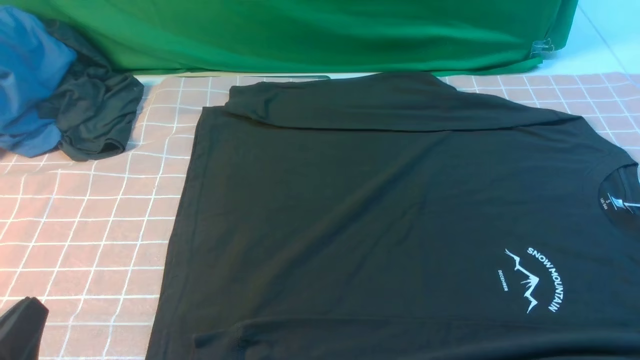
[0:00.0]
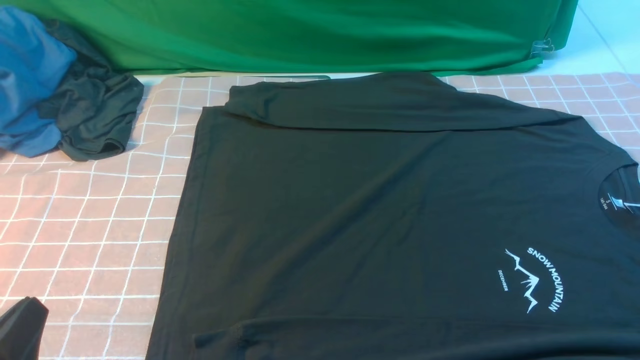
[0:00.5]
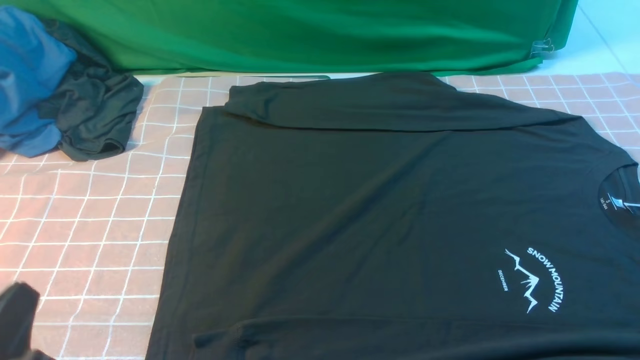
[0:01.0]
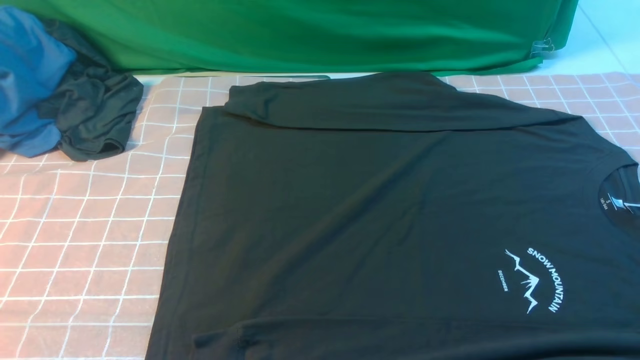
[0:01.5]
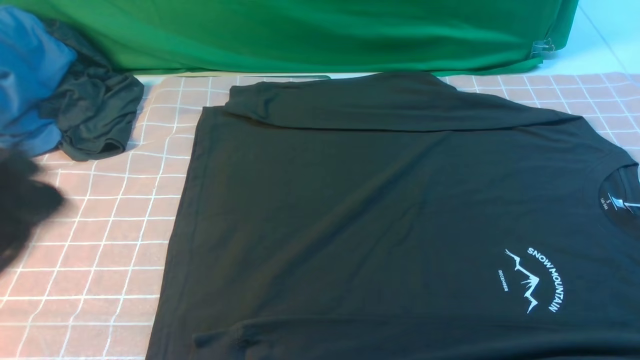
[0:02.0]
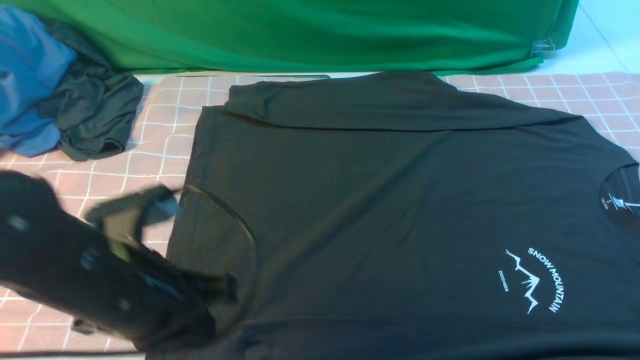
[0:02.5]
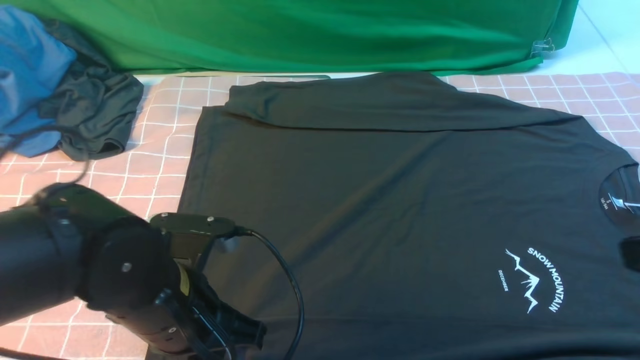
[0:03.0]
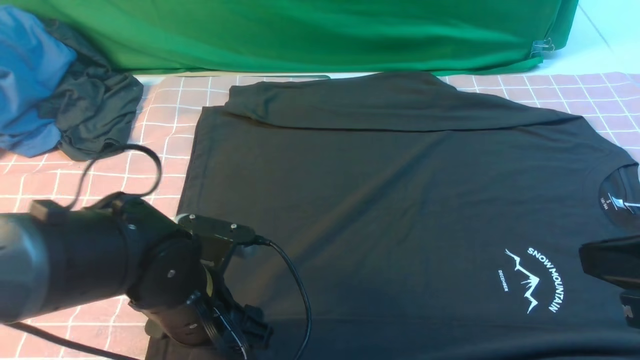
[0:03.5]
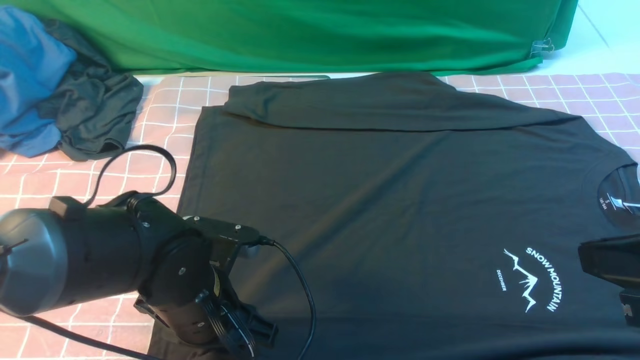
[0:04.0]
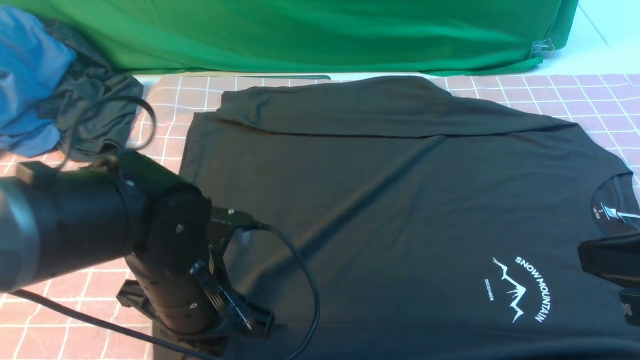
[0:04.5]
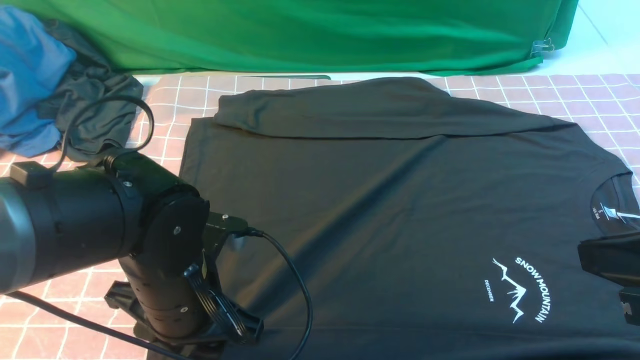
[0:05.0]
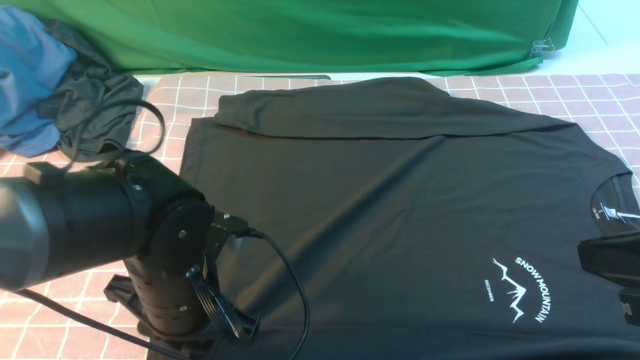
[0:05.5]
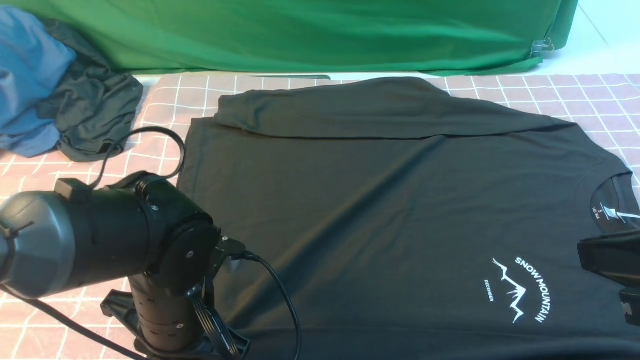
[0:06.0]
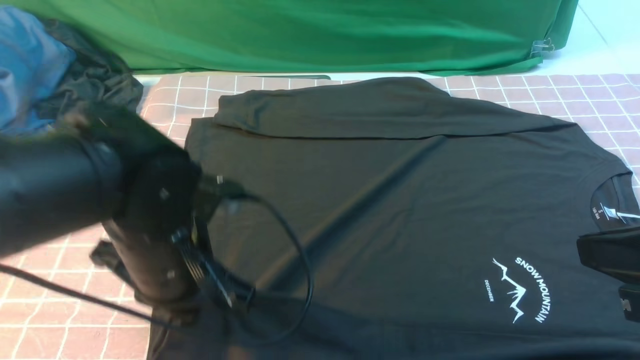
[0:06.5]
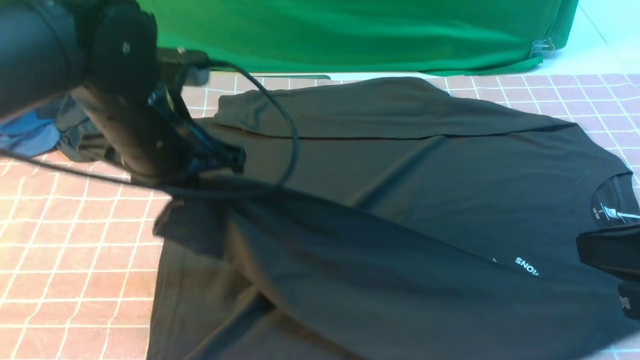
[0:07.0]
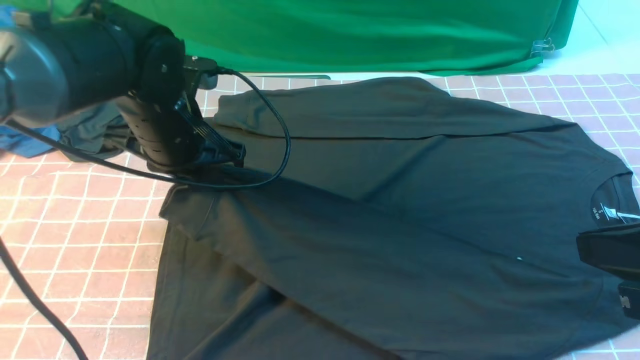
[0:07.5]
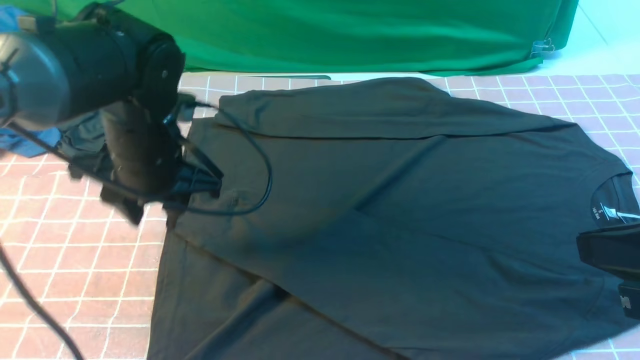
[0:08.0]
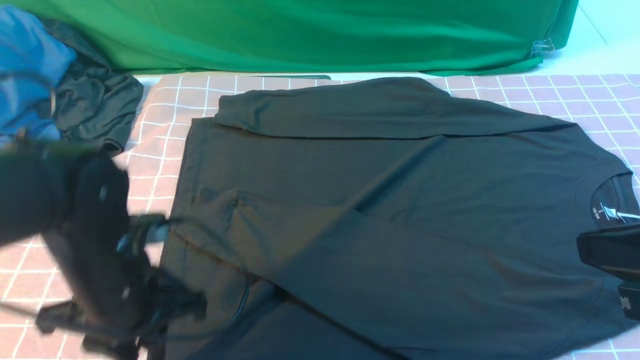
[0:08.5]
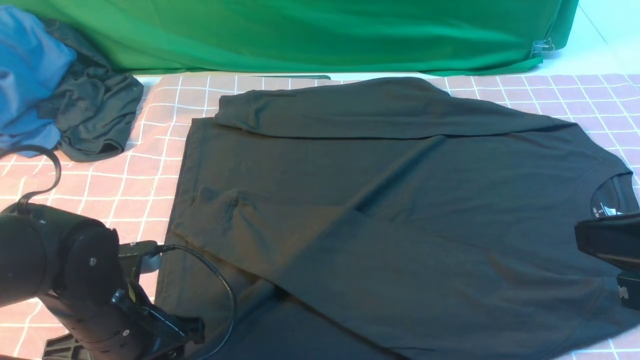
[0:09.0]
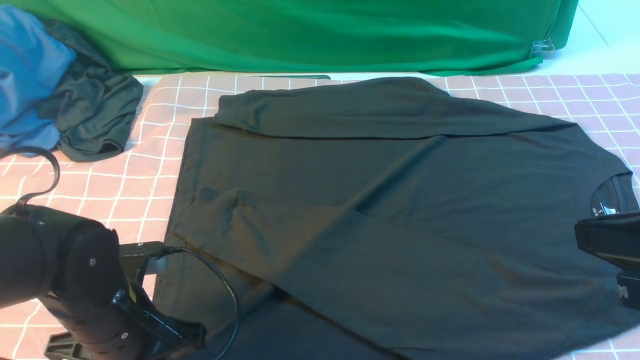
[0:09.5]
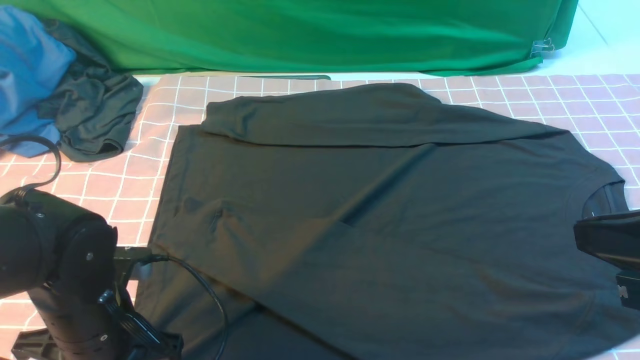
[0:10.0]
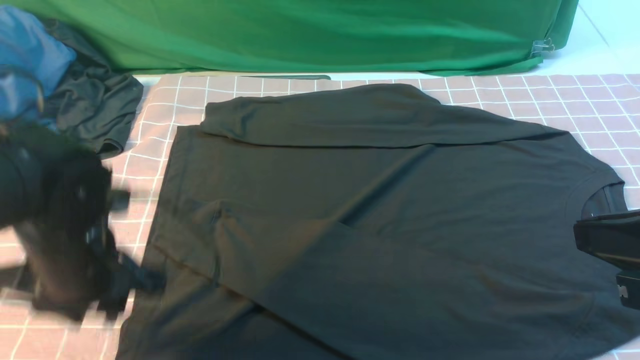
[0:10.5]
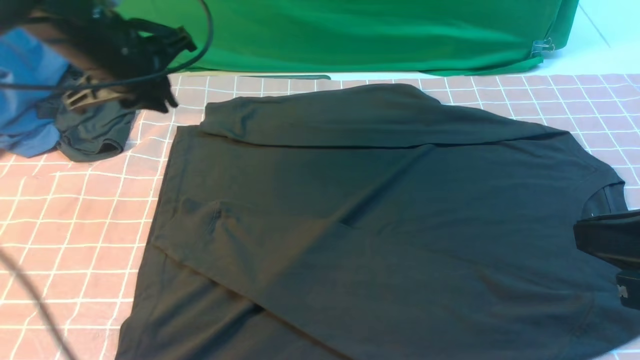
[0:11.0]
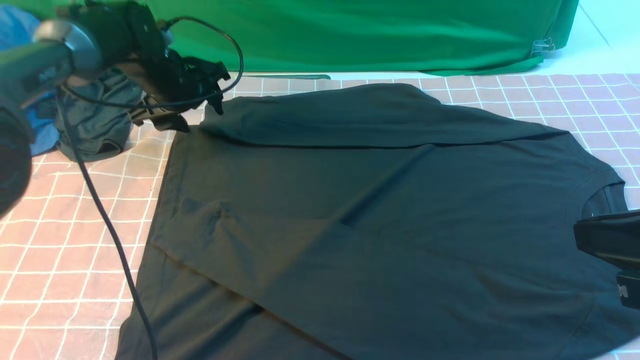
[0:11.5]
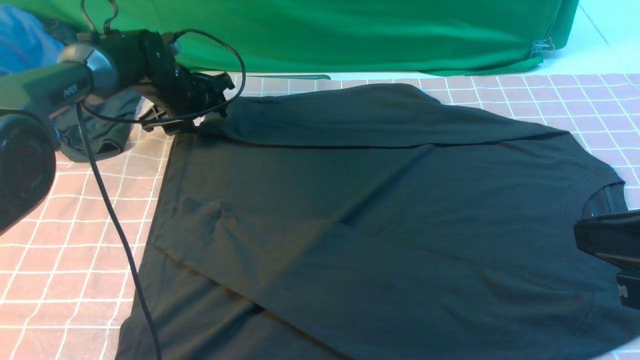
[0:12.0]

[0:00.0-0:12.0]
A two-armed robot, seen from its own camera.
Step, 0:00.0 to 0:06.5: use the left arm to clamp the cuff closest to it.
Step, 0:07.0 to 0:07.5: use the left arm to drag and place the cuff at the centered position on the left edge of the fabric.
0:00.0 to 0:02.0: The left gripper travels upward and forward by roughly 15 cm.
0:02.0 to 0:04.0: The left gripper heads downward, to the right and forward, covering about 20 cm, and opens up. The right gripper heads upward, forward and to the left, covering about 15 cm, and closes its fingers.
0:04.0 to 0:06.0: The grippers stay close to where they were, moving slightly.
0:06.0 to 0:08.0: The left gripper is displaced forward and upward by roughly 10 cm.
0:08.0 to 0:10.0: The left gripper moves backward and downward, roughly 15 cm, and closes its fingers.
0:10.0 to 0:12.0: The left gripper is displaced forward by some 30 cm, and opens its fingers.

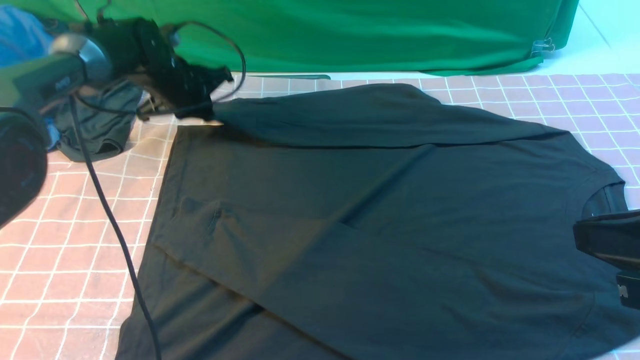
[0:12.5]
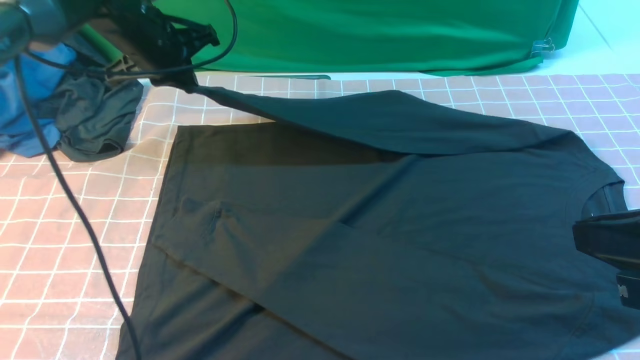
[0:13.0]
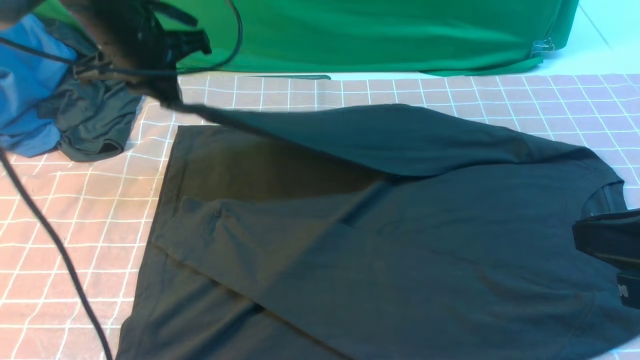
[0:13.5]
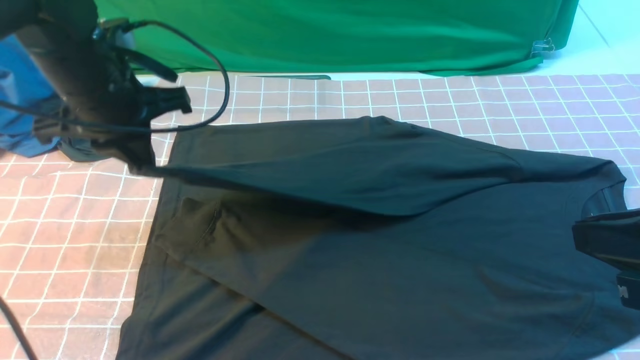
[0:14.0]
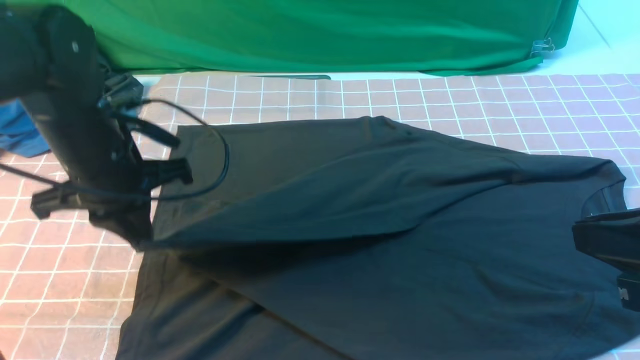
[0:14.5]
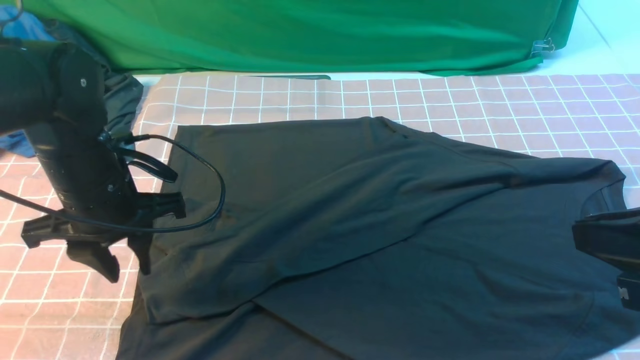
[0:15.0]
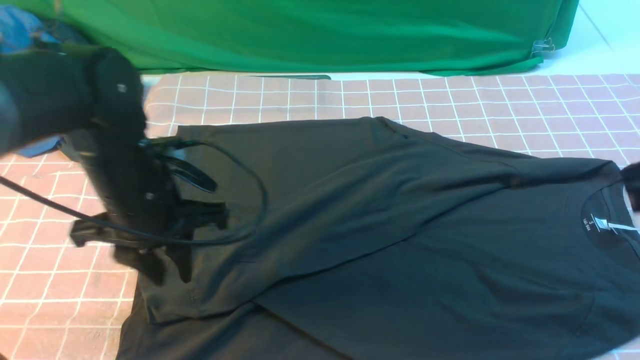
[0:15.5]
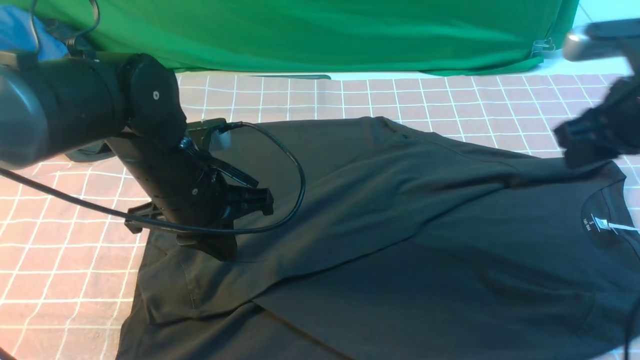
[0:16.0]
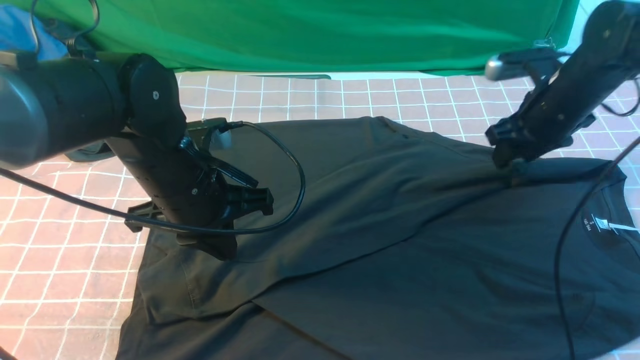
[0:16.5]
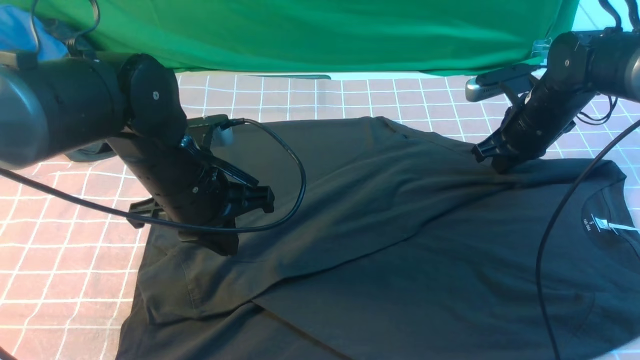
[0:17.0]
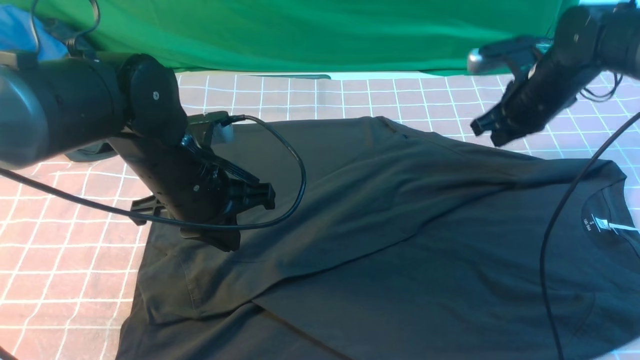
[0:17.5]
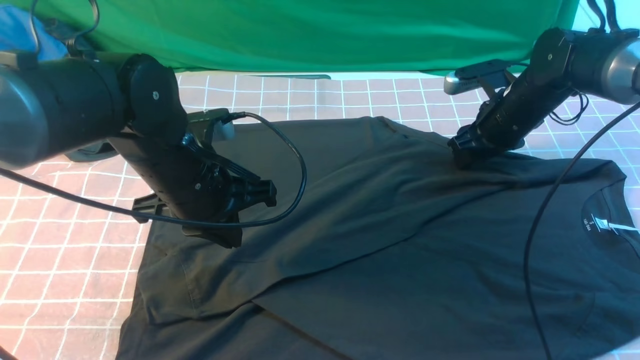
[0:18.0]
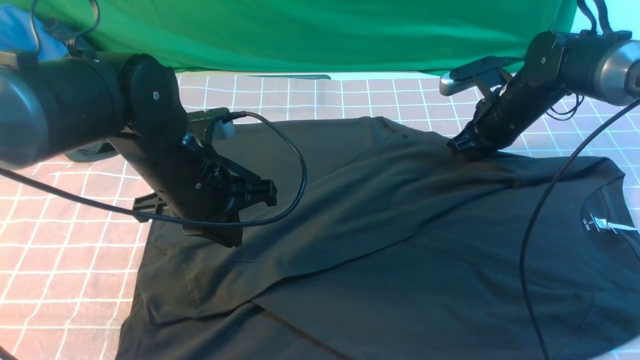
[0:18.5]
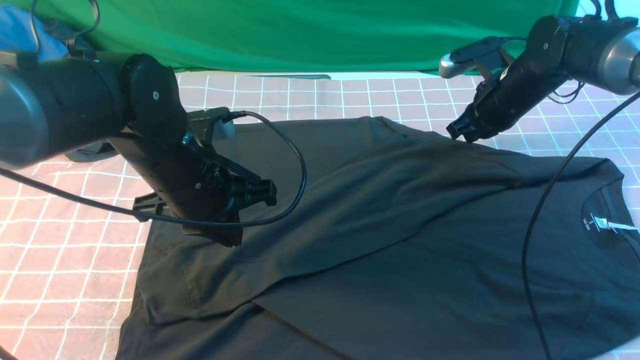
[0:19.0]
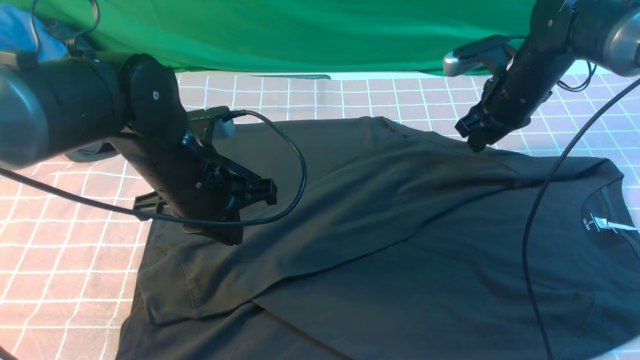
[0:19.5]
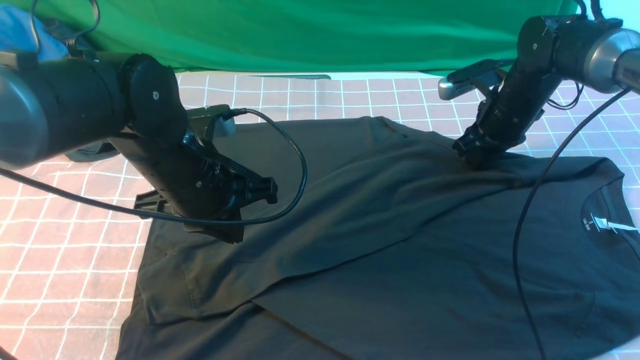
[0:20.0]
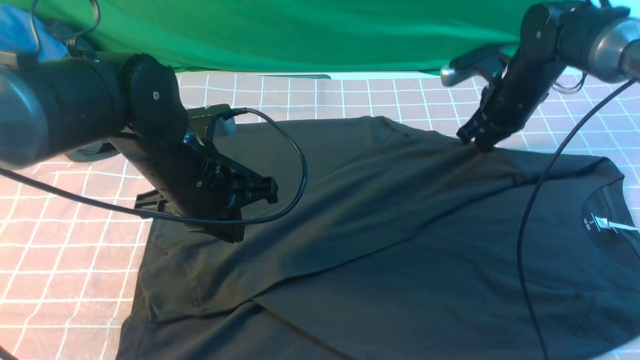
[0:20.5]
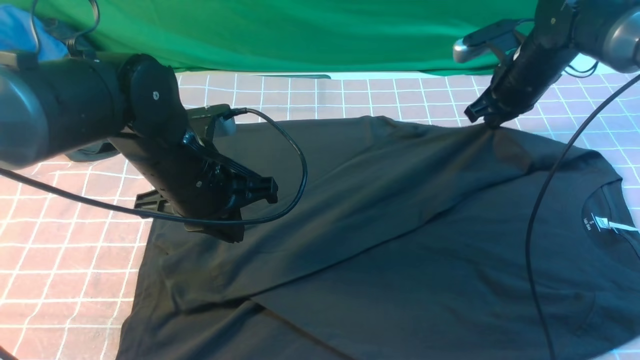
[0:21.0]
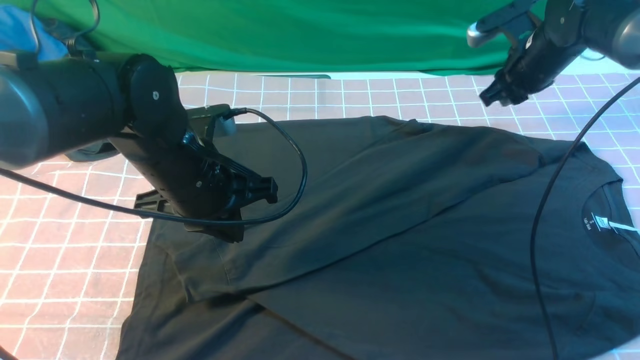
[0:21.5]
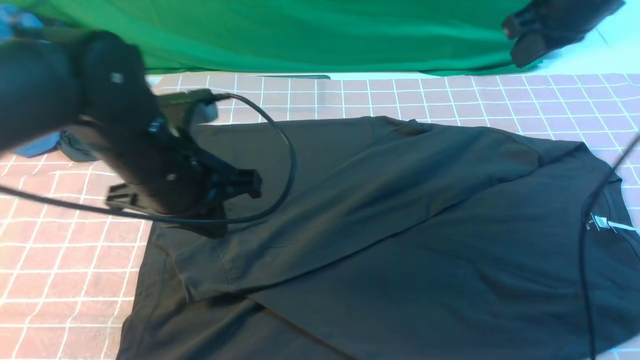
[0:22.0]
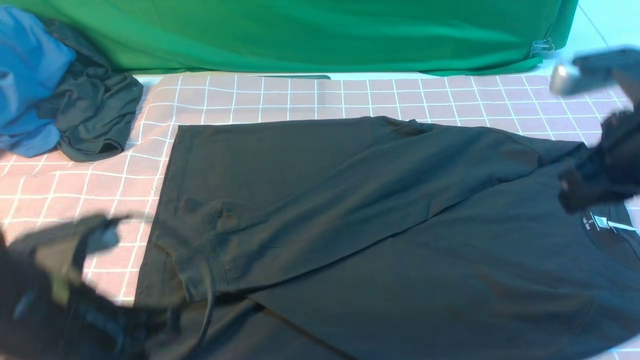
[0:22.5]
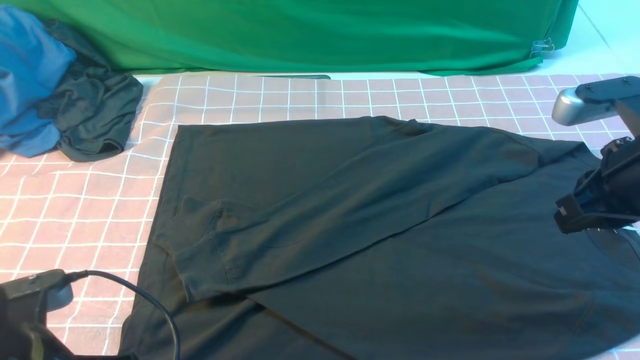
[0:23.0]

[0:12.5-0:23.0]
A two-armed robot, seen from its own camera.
Step, 0:12.5 to 0:15.0: use the left arm to drag and drop the cuff onto the cuff closest to the left arm.
0:12.5 to 0:14.5: The left gripper travels backward by roughly 20 cm.
0:14.5 to 0:16.5: The left gripper heads to the right, covering some 10 cm, and opens, then closes again. Meanwhile the right gripper shifts some 30 cm forward and downward, and opens.
0:16.5 to 0:19.0: The right gripper is displaced forward by approximately 5 cm, and closes up.
0:19.0 to 0:21.0: The right gripper opens, then closes again.
0:21.0 to 0:23.0: The right gripper is displaced backward by approximately 25 cm, and opens and closes again, while the left gripper moves backward and to the left, about 20 cm, and opens.
